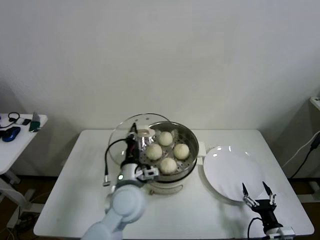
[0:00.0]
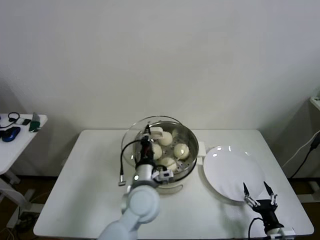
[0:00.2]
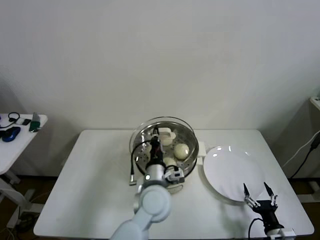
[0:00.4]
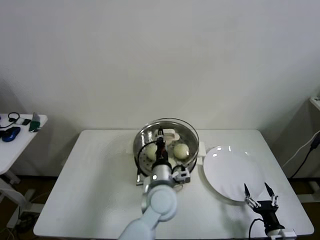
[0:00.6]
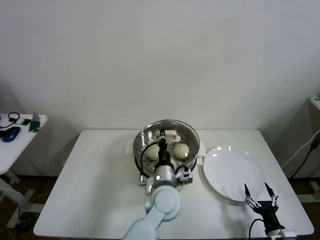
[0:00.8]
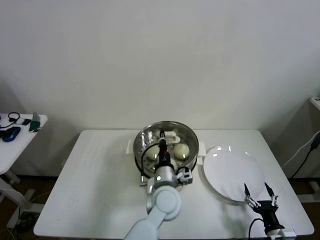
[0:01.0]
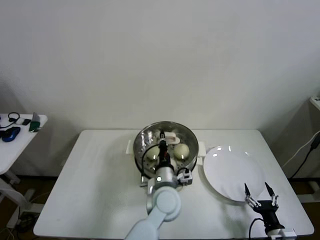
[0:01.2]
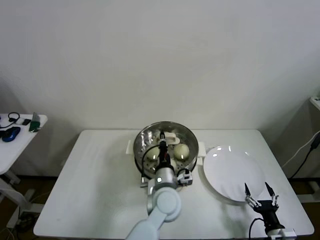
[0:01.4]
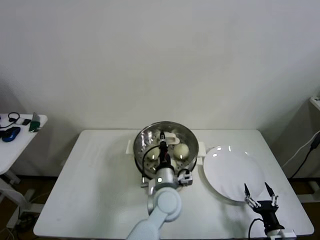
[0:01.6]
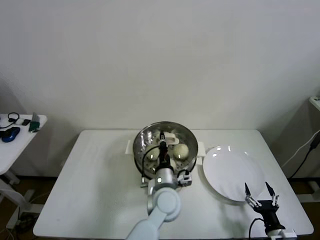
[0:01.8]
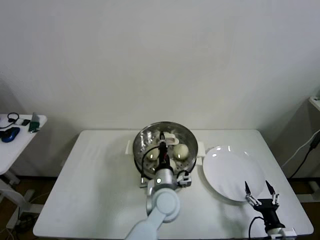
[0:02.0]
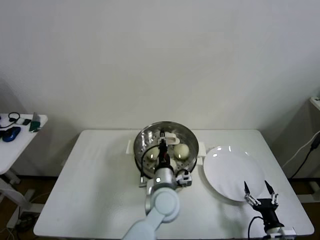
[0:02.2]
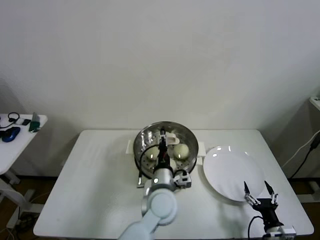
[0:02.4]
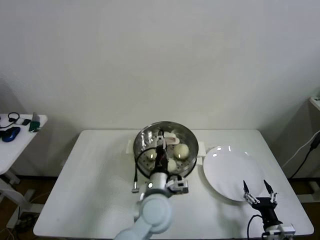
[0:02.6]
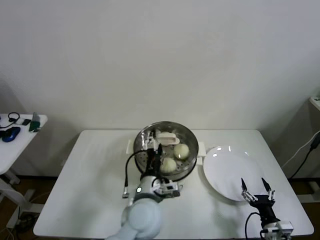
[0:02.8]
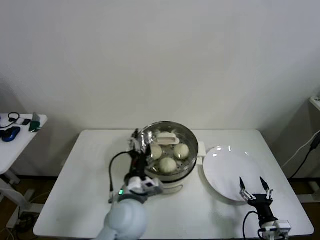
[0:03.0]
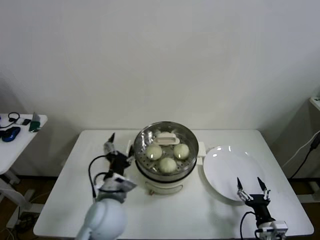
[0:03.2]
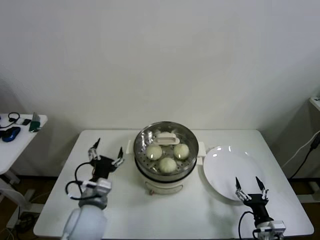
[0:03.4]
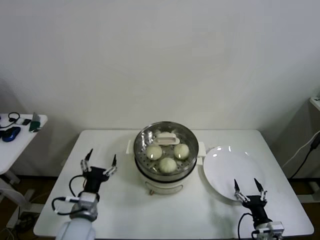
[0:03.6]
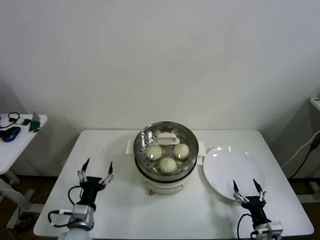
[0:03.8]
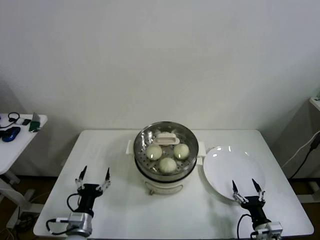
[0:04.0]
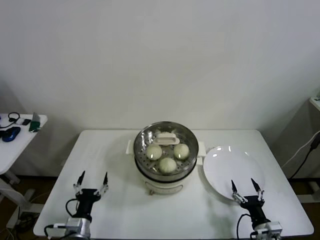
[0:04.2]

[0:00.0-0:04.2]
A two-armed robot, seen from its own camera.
Step, 0:00.0 to 0:02.0: Place the pot lid on the steamer with left gripper.
0:00.0 to 0:01.4: The left gripper moves to the right and downward, roughly 15 cm.
0:01.4 to 0:02.8: The left gripper shifts by approximately 10 cm, and opens up.
0:02.8 to 0:04.2: The left gripper travels to the left and downward by some 30 cm.

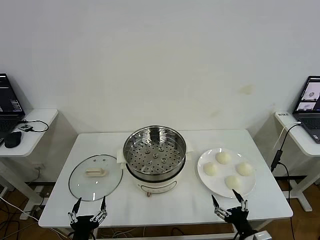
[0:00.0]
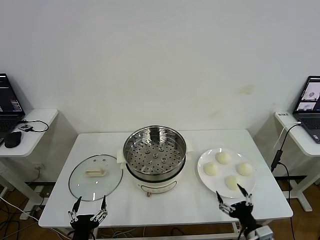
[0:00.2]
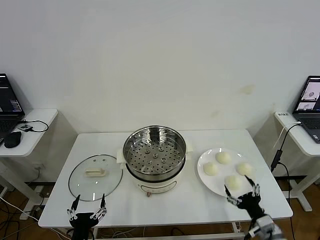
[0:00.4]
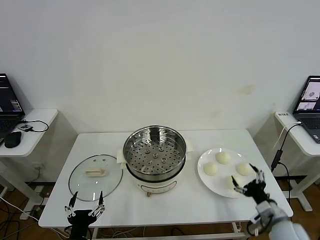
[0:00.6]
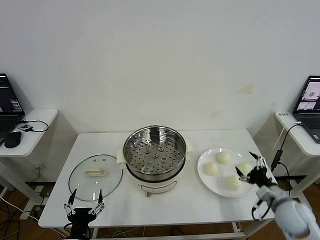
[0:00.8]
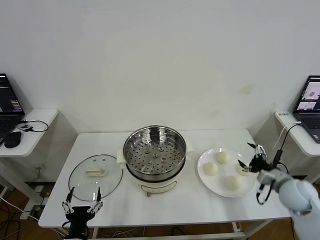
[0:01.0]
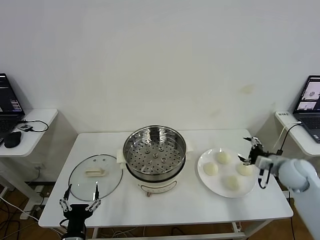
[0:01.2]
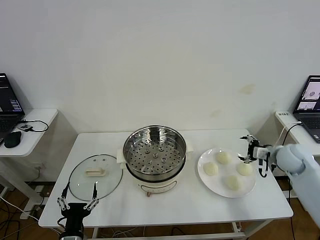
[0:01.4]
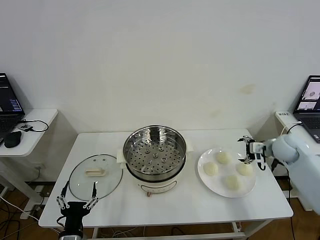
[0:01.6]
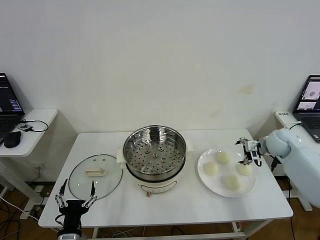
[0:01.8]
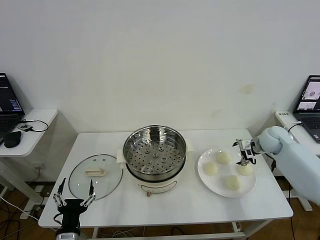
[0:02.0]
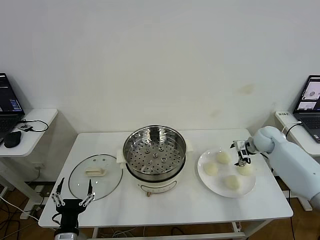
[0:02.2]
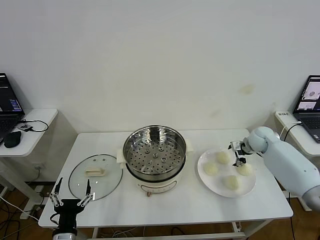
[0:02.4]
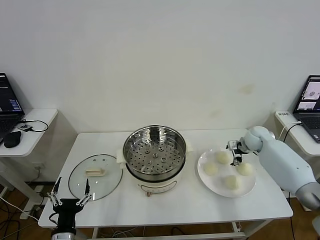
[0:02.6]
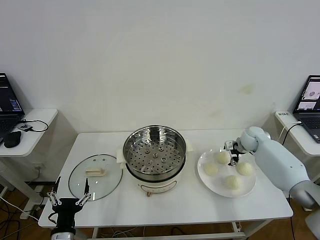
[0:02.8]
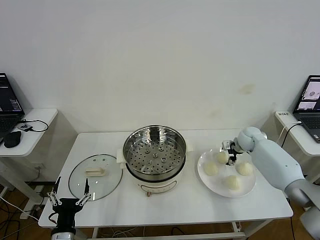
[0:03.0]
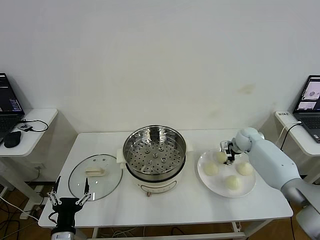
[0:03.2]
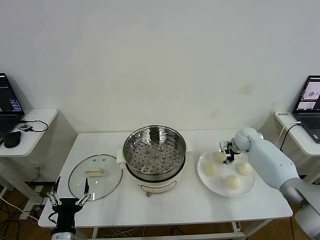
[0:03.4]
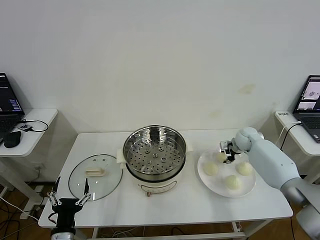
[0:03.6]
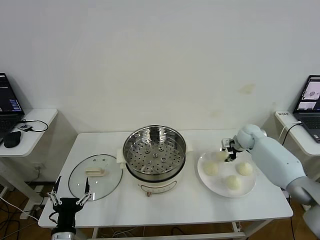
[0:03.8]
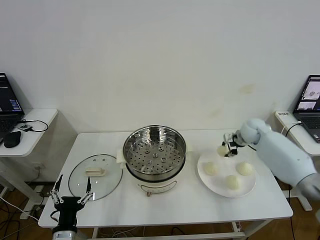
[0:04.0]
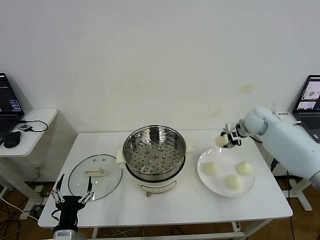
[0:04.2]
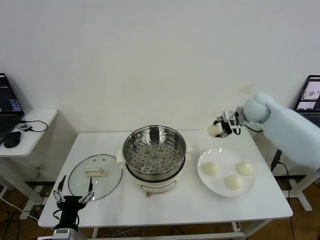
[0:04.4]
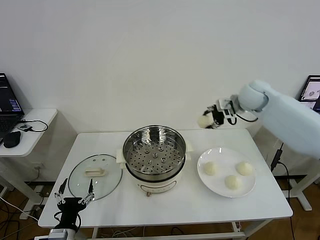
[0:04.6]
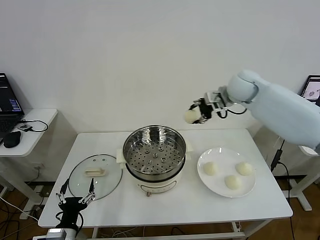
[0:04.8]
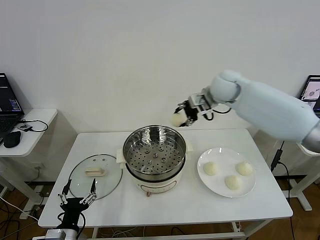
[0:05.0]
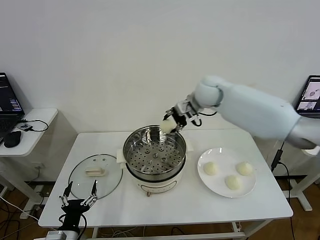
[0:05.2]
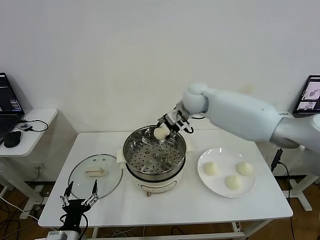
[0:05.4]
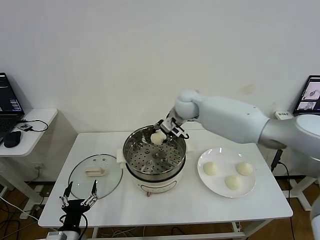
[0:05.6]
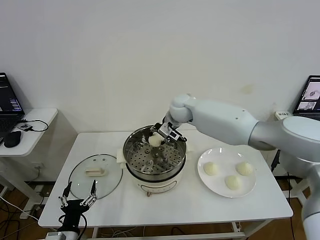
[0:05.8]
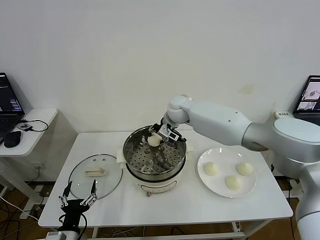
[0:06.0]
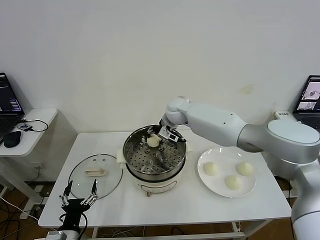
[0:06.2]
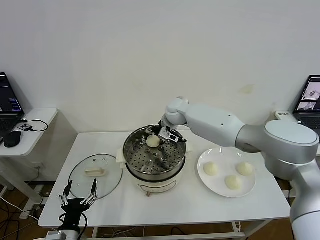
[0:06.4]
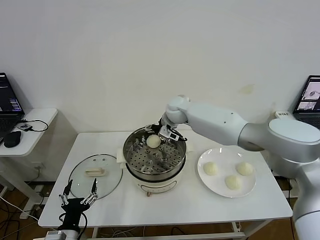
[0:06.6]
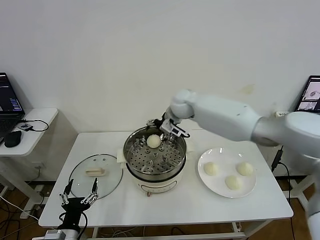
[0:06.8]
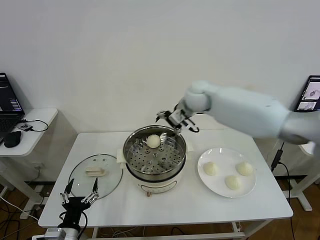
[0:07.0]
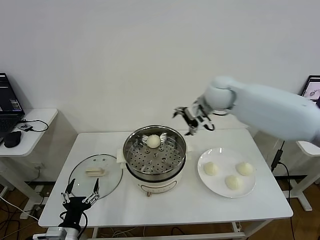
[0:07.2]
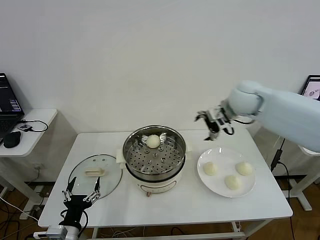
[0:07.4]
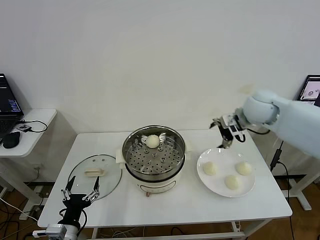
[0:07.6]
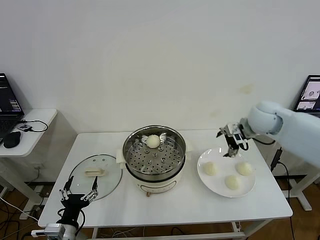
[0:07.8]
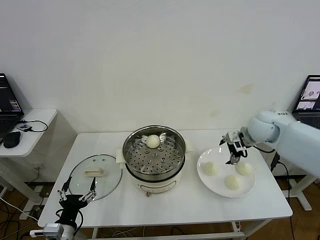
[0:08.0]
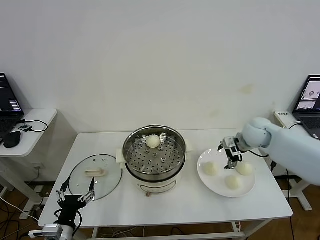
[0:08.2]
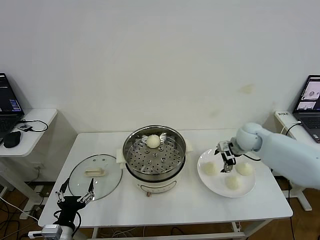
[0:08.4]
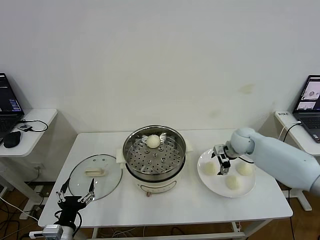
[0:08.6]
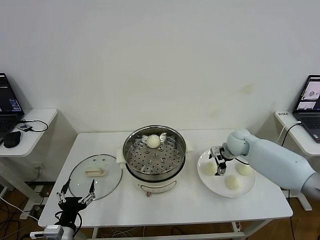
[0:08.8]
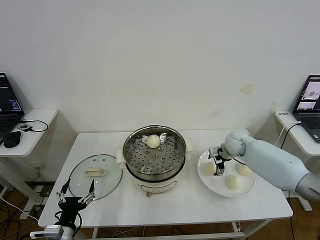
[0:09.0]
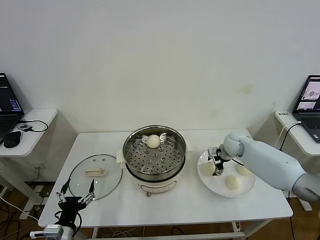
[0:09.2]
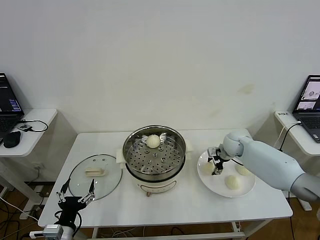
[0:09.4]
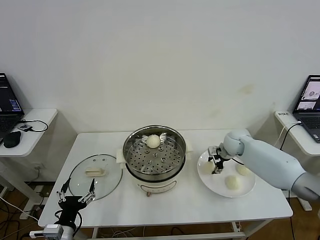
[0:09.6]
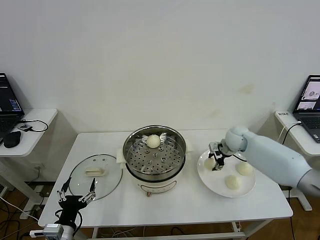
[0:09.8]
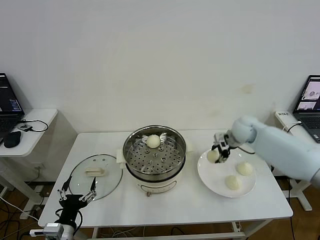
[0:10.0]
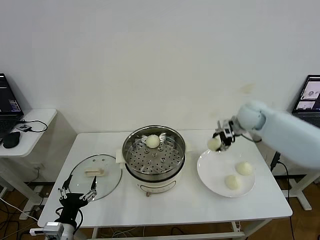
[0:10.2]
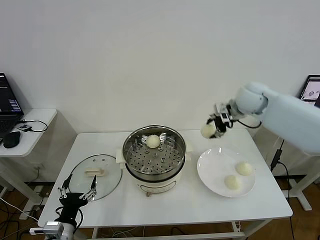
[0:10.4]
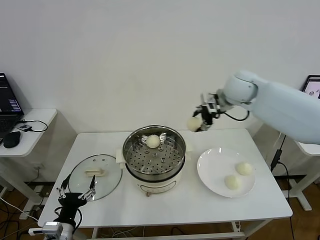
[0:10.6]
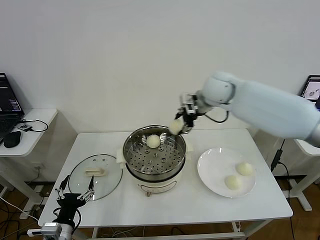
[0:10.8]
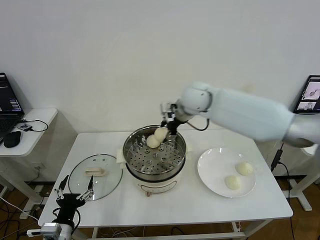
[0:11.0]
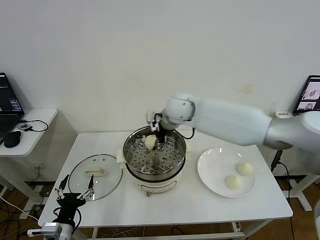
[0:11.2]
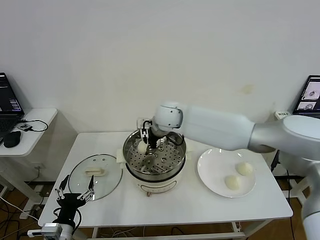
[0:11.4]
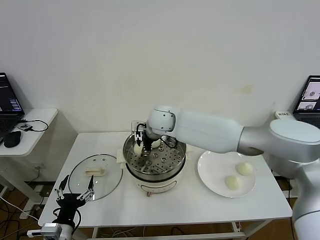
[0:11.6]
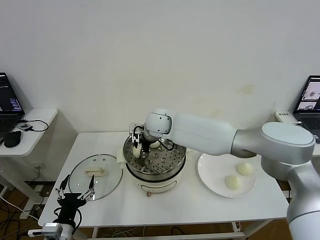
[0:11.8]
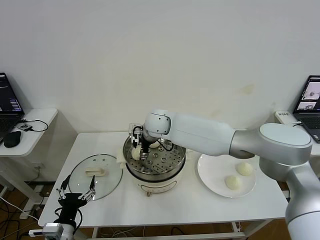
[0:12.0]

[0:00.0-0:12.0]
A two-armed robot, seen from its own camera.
Step, 0:00.0 to 0:03.4: Grasp the baozi in the plate with right gripper.
Step, 0:03.6 to 0:06.2: Place the baozi on the steamer with right gripper.
Step, 0:06.6 to 0:09.4: Grasp the baozi in the plate with right gripper.
Step, 0:09.6 to 0:11.8: Place the baozi on the steamer with right gripper.
0:01.6 to 0:03.0: The right gripper moves forward, downward and to the left, approximately 15 cm.
0:03.0 to 0:04.4: The right gripper is displaced upward by approximately 20 cm, and closes up.
0:04.4 to 0:06.0: The right gripper heads to the left, covering approximately 25 cm.
0:06.0 to 0:07.6: The right gripper heads to the right, covering approximately 25 cm, and opens its fingers.
0:07.6 to 0:09.0: The right gripper is displaced downward by roughly 20 cm.
0:09.0 to 0:10.4: The right gripper moves upward, approximately 25 cm, and closes up.
0:10.4 to 0:12.0: The right gripper goes roughly 30 cm to the left and downward, and opens.

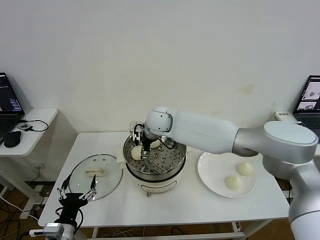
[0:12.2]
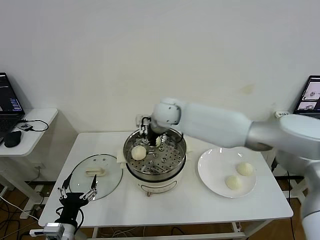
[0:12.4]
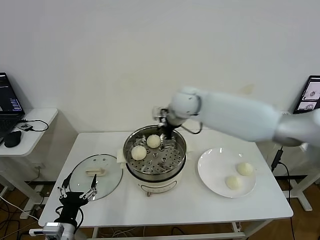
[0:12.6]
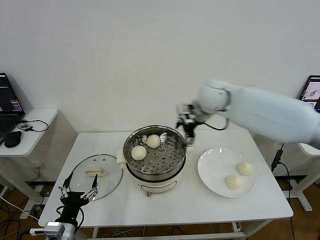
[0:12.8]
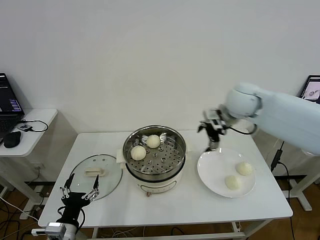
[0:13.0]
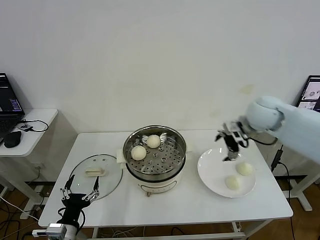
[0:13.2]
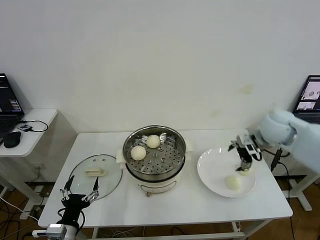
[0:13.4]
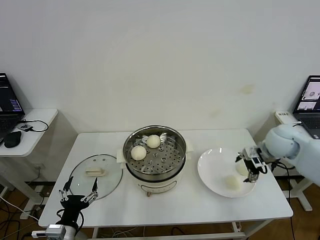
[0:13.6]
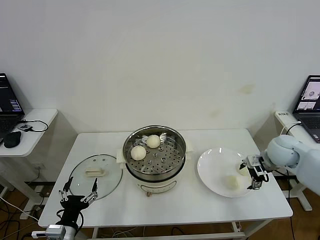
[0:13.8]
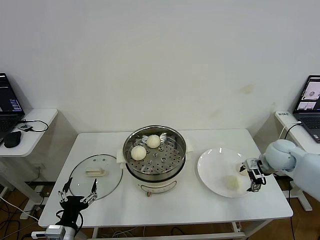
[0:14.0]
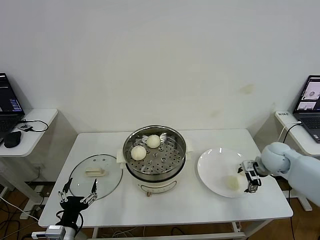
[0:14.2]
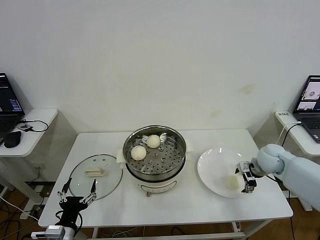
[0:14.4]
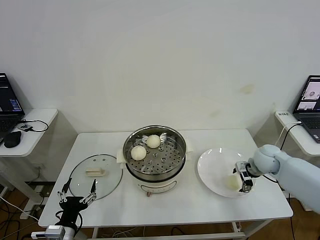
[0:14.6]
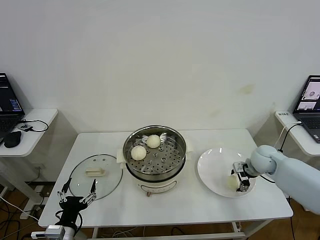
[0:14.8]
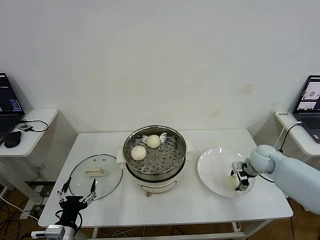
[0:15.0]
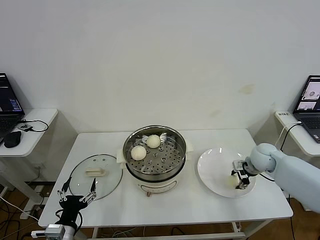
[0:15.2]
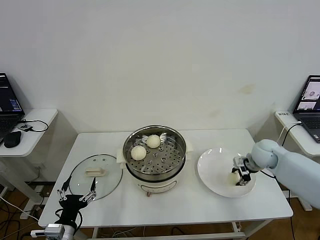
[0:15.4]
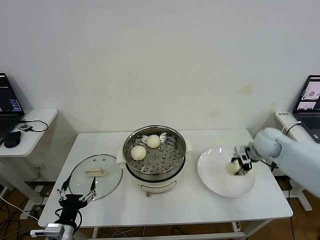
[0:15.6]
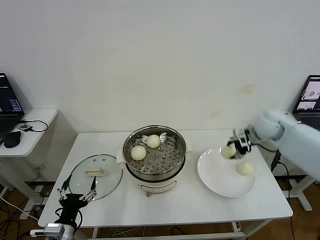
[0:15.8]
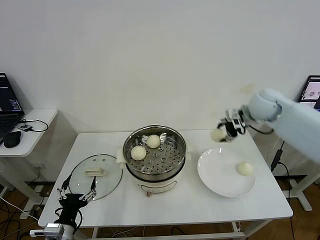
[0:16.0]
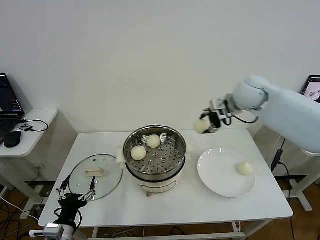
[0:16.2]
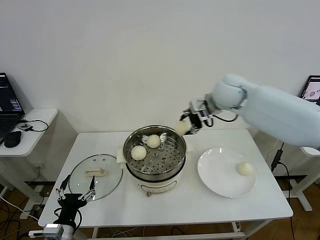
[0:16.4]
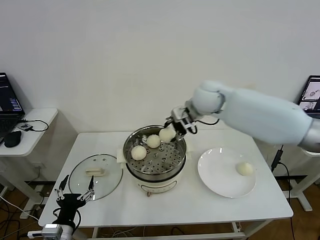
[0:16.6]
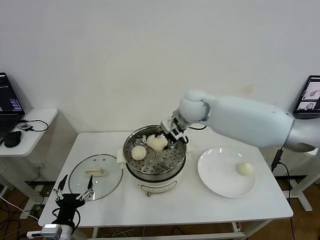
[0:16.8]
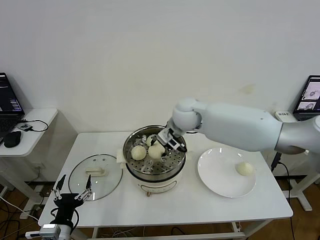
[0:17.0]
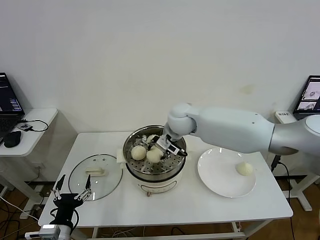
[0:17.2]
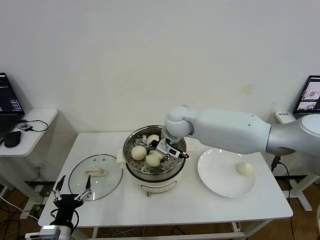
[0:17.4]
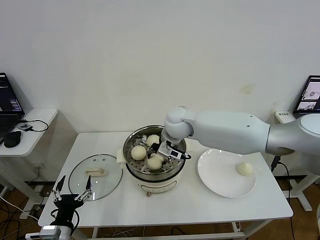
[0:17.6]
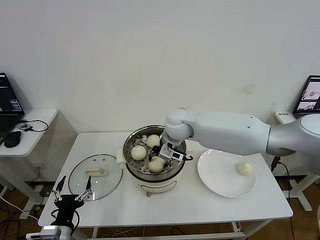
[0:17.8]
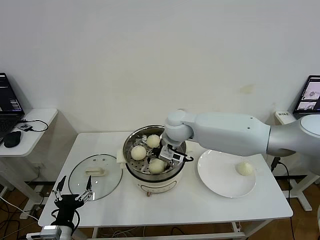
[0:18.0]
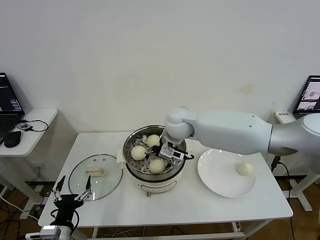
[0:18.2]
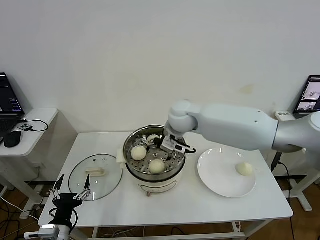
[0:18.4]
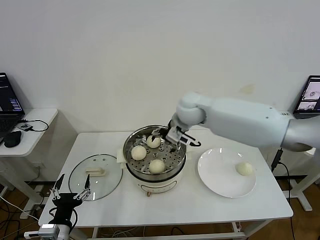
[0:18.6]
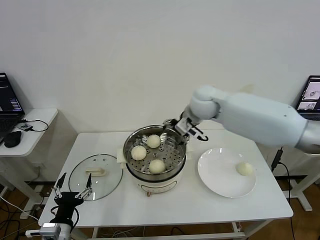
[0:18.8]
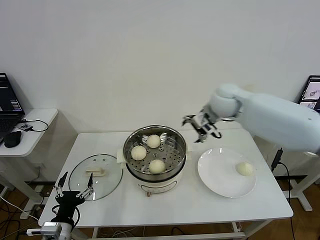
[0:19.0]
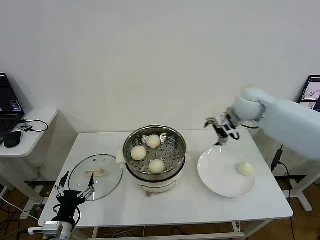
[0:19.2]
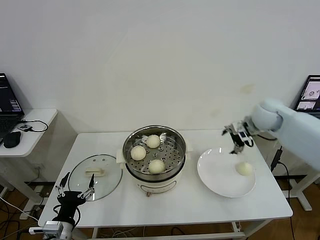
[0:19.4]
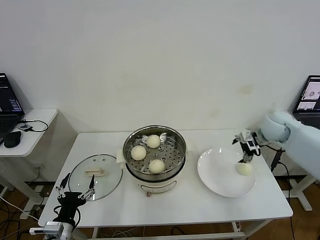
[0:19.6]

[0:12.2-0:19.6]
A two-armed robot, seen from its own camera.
Step, 0:12.2 to 0:15.0: Grasp the baozi in the plate with right gripper.
Step, 0:15.2 to 0:18.0: Place the baozi on the steamer with right gripper.
0:12.2 to 0:13.6: The right gripper goes some 40 cm to the right.
0:13.6 to 0:15.2: The right gripper goes approximately 10 cm downward, and closes.
0:15.2 to 0:16.6: The right gripper goes approximately 30 cm to the left and upward.
0:16.6 to 0:18.2: The right gripper heads to the left and downward, covering roughly 10 cm, and opens.
0:18.2 to 0:19.6: The right gripper shifts some 35 cm to the right.
